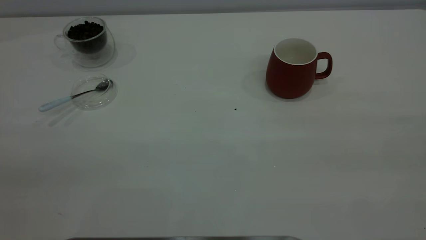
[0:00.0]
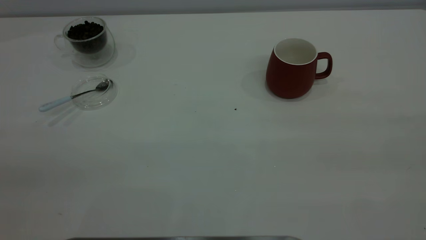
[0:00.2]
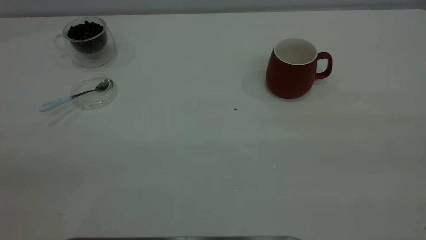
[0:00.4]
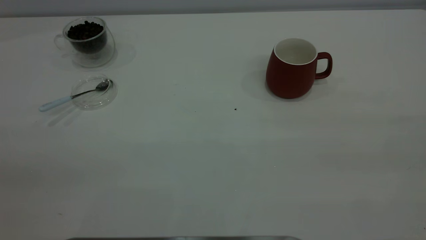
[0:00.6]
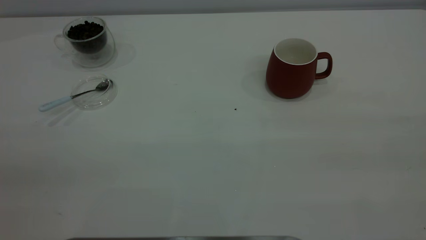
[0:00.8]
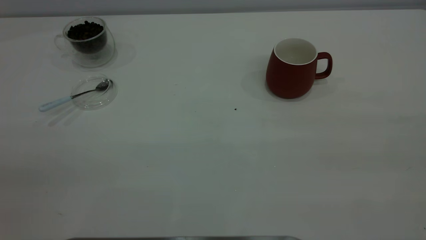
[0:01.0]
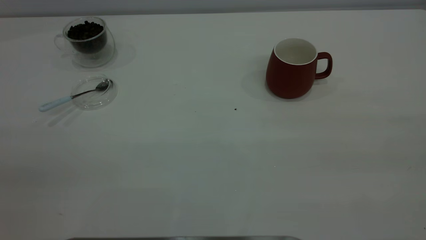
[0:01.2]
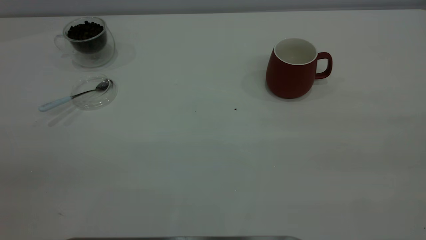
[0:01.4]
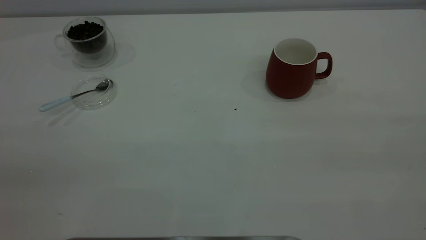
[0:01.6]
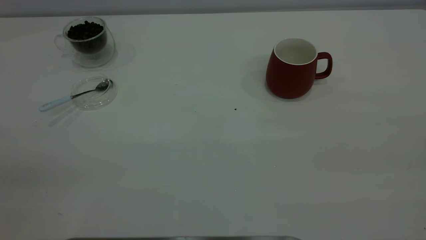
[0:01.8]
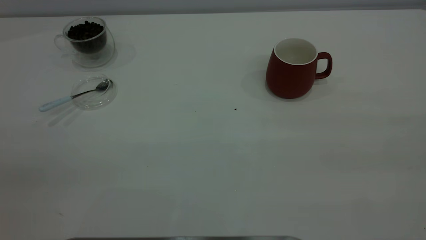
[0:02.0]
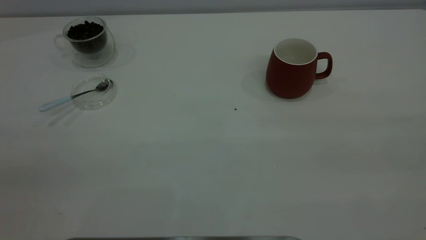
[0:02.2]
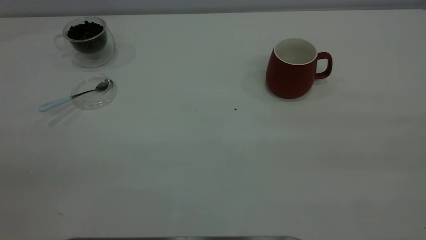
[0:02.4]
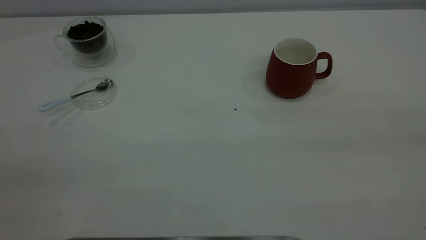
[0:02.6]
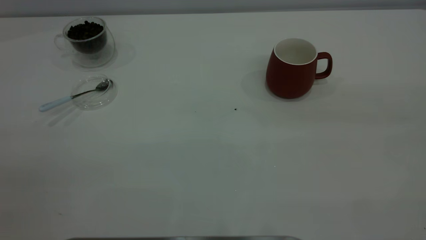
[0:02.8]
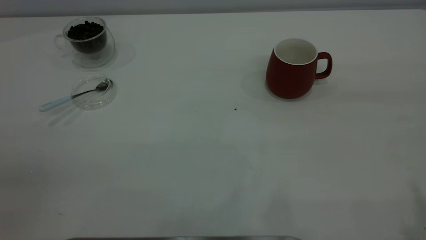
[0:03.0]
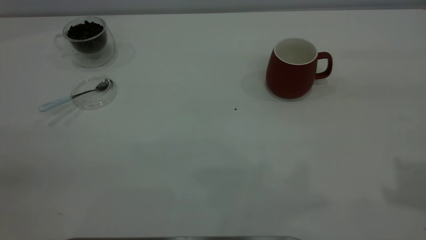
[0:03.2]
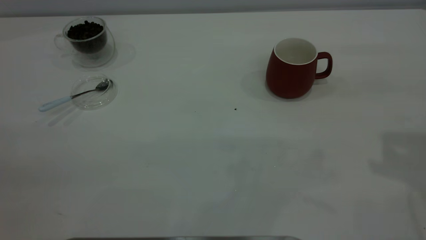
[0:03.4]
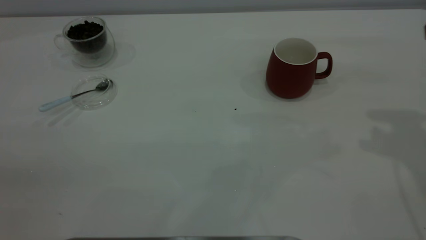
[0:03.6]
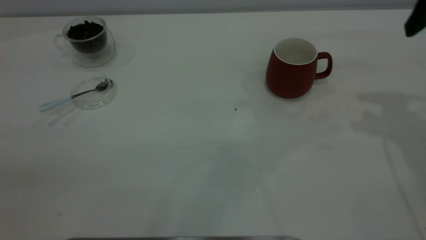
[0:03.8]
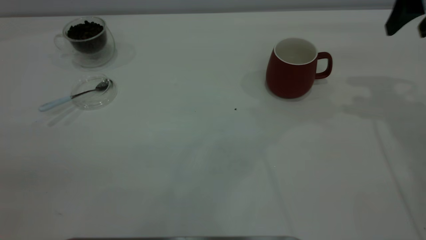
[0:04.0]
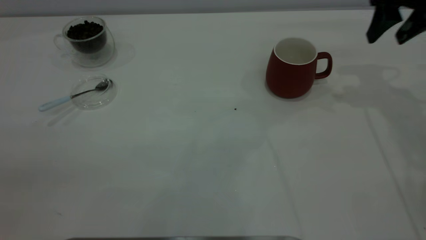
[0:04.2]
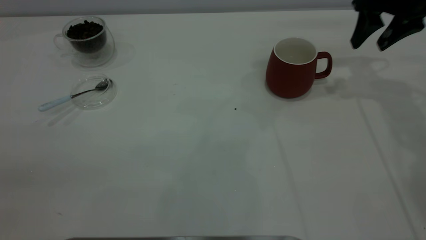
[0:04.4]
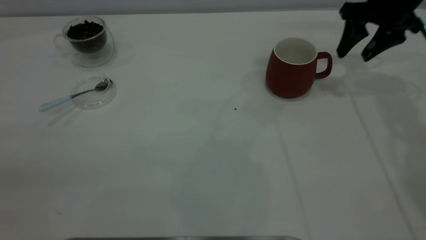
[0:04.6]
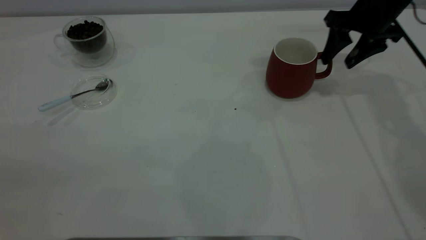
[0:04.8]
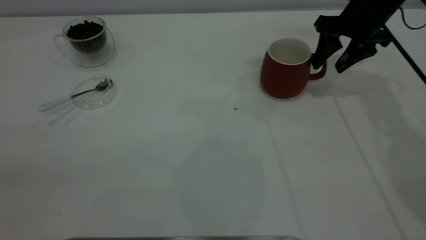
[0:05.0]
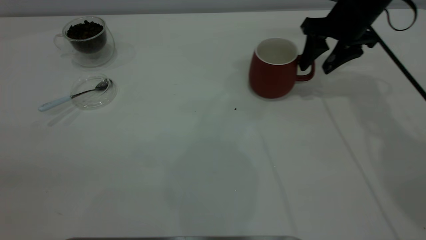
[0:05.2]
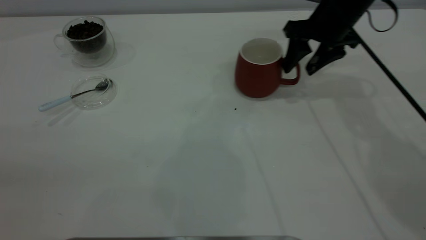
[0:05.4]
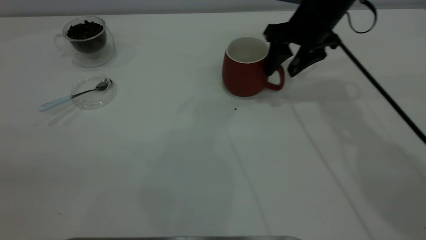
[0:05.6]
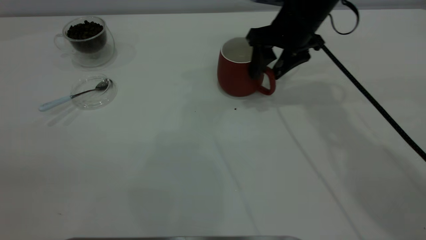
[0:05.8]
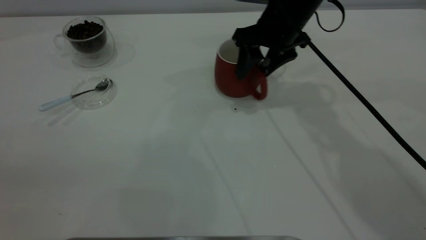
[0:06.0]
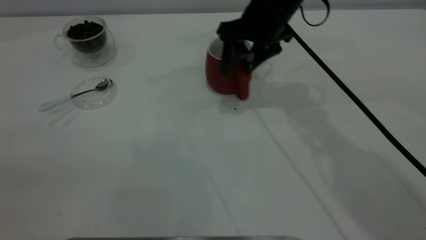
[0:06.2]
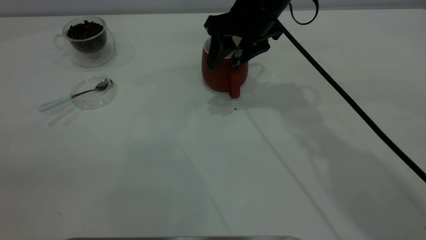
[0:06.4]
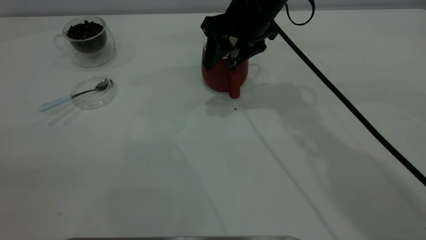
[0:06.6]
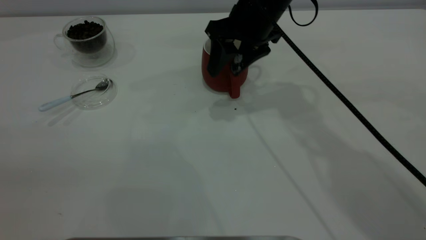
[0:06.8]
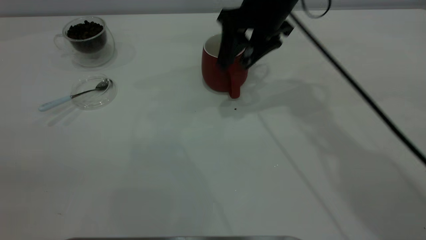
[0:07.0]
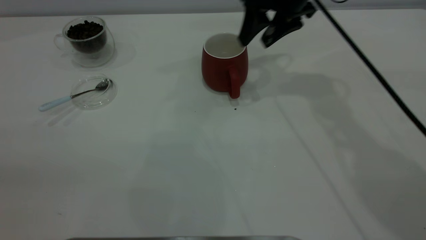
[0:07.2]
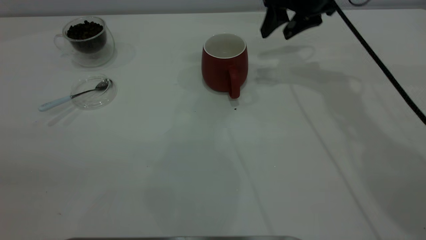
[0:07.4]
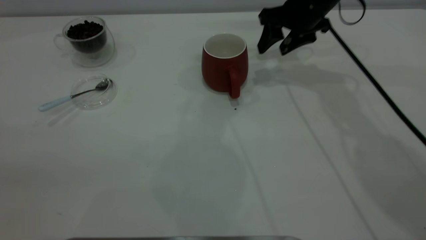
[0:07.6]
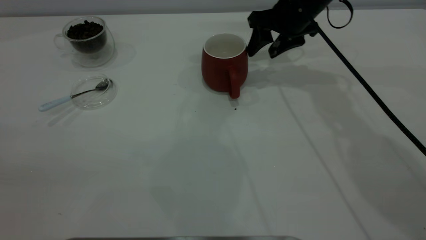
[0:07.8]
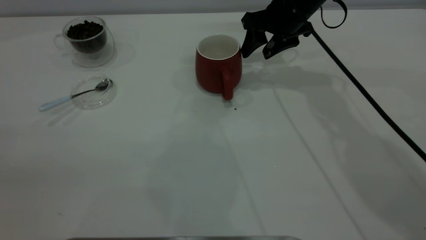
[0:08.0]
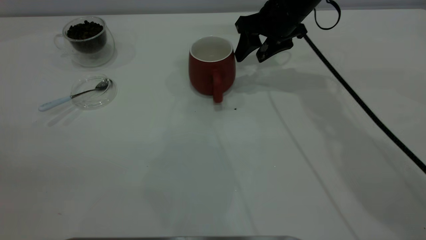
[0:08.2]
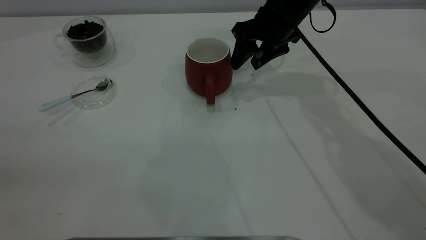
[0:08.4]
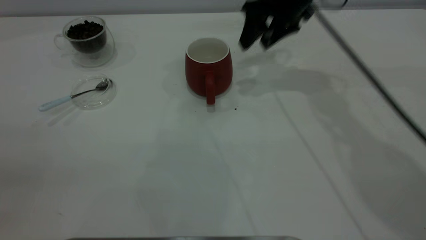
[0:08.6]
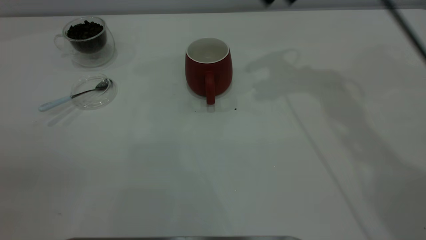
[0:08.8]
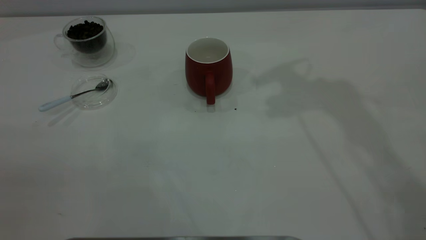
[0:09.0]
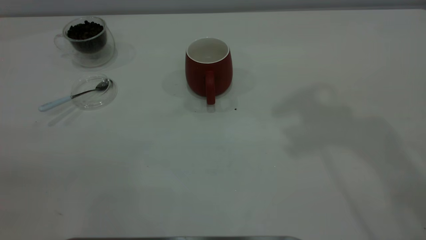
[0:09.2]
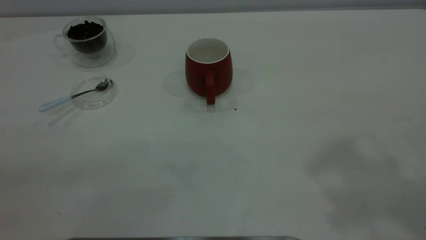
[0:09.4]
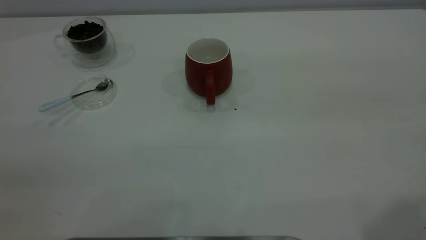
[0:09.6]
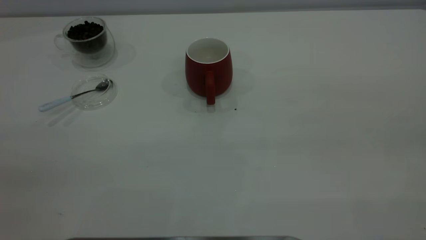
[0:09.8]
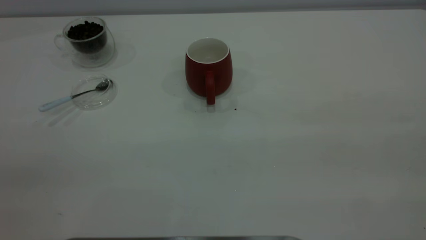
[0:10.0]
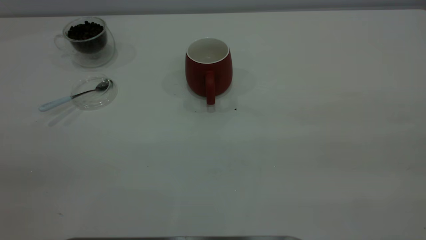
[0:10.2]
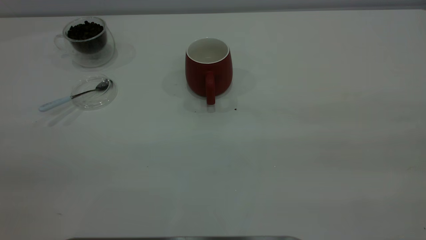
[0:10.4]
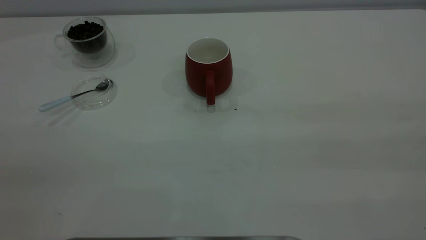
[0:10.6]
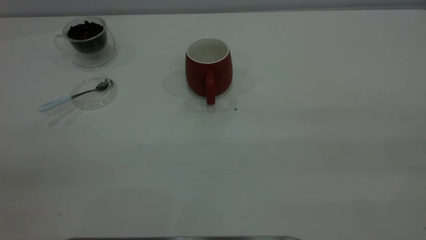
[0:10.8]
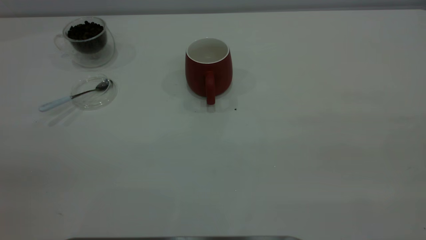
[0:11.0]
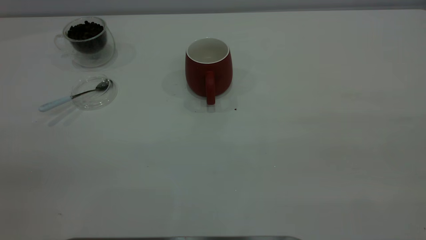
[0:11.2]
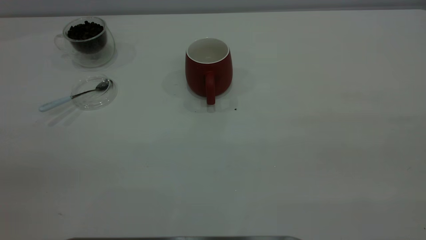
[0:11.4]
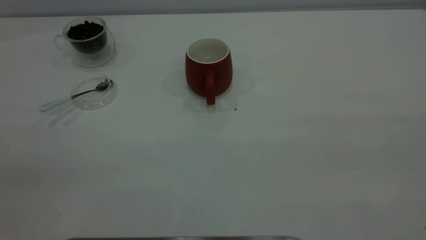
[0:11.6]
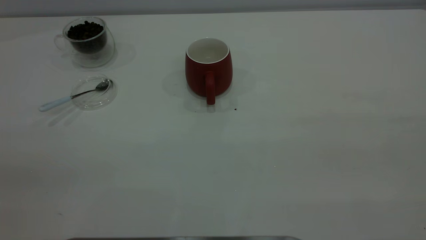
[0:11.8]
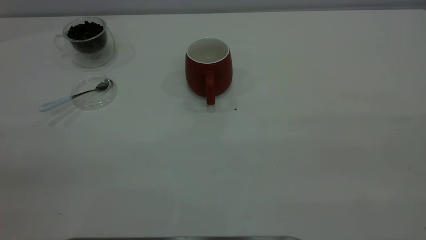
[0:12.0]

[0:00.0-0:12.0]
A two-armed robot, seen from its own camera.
Task of the whole recording: the right gripper place the red cup in the center of the table, the left gripper take the blue spoon from the cup lid and scoop out the coffee beans from the coffee cup and put them into the red cup, the left gripper put the spoon back into the cup lid.
Step, 0.0 to 8.4 s: Move the cup to the center of view.
0.0 to 1.6 s: Both grippers stay put.
3.0 to 4.4 s: The right gripper travels forward and downward by some 35 cm.
4.4 to 6.0 s: The right gripper heads to the left, covering roughly 20 cm.
6.0 to 7.6 s: The right gripper moves forward and to the right, about 10 cm.
7.6 to 9.0 s: The right gripper is displaced upward by roughly 25 cm.

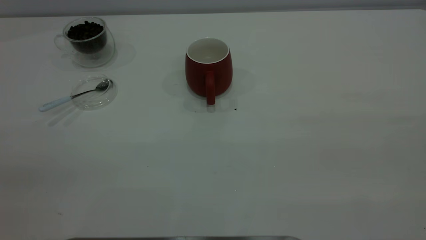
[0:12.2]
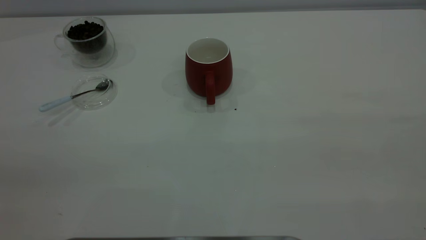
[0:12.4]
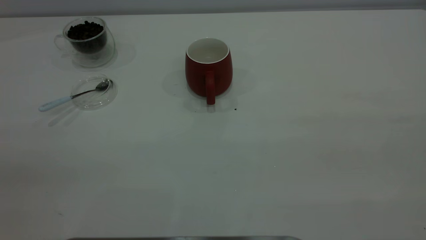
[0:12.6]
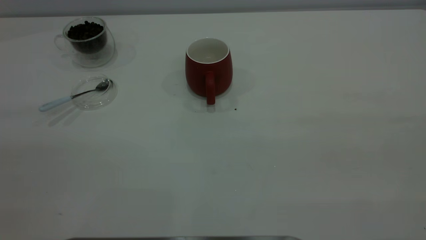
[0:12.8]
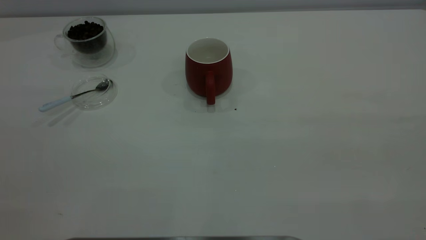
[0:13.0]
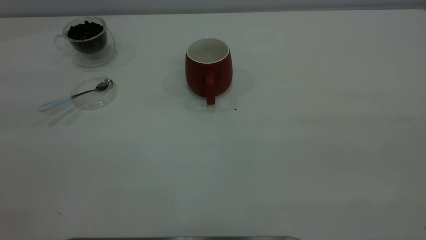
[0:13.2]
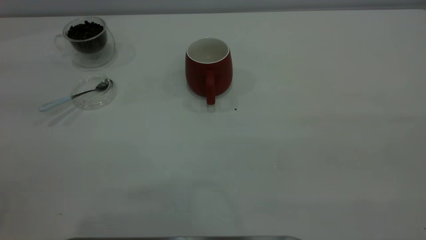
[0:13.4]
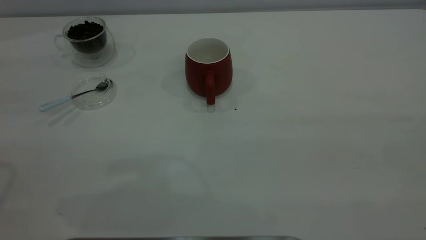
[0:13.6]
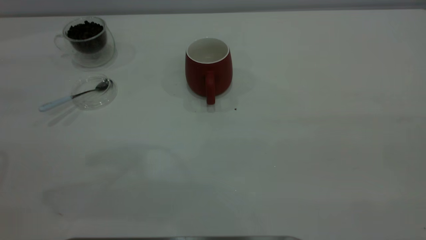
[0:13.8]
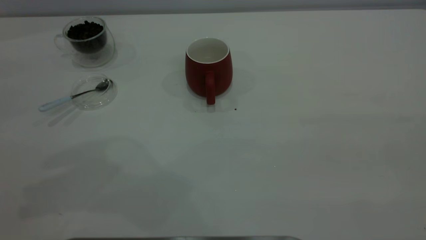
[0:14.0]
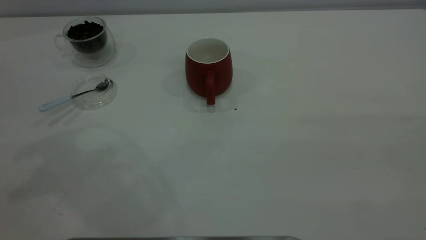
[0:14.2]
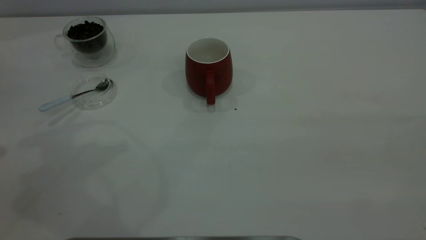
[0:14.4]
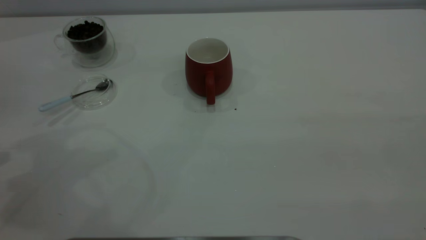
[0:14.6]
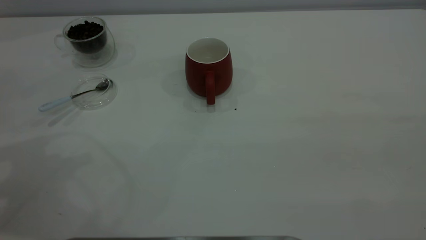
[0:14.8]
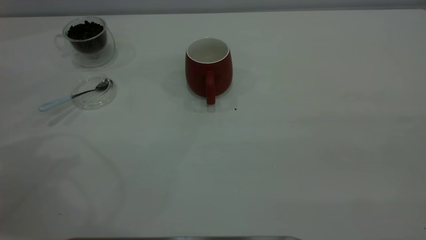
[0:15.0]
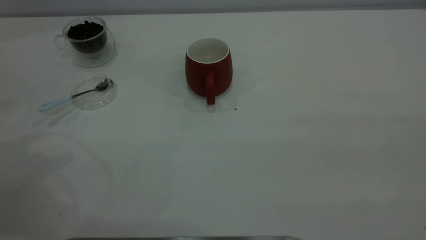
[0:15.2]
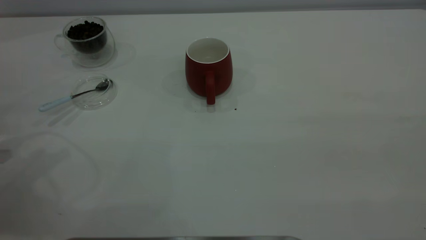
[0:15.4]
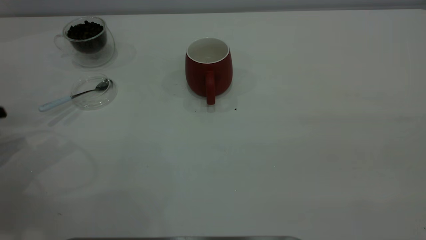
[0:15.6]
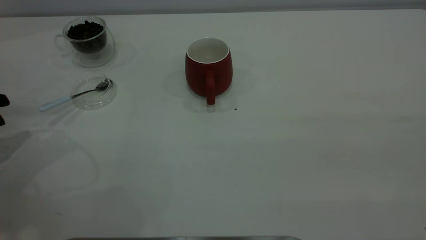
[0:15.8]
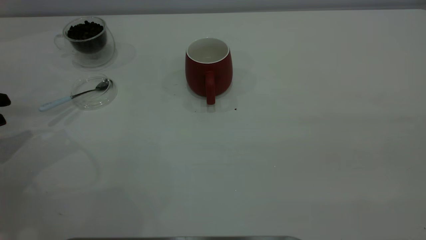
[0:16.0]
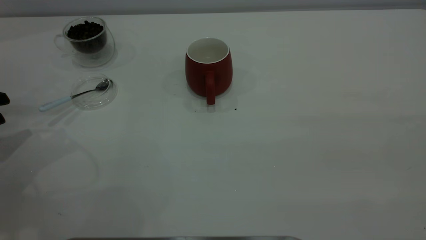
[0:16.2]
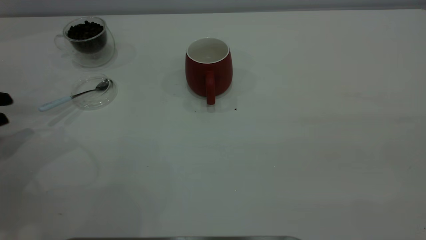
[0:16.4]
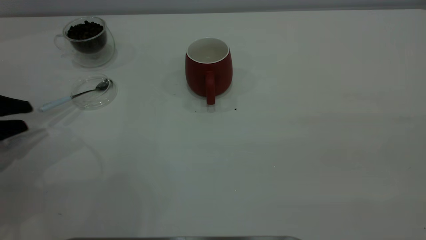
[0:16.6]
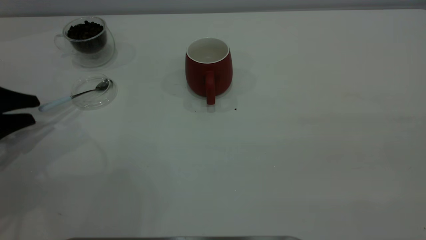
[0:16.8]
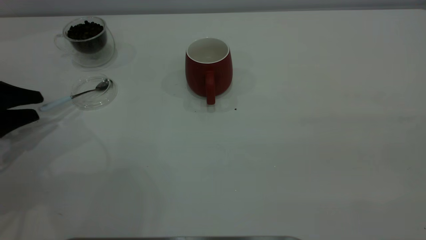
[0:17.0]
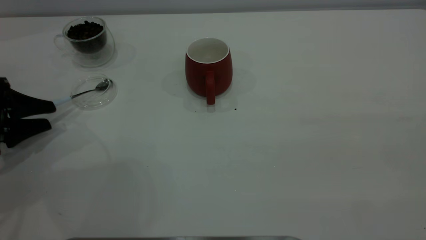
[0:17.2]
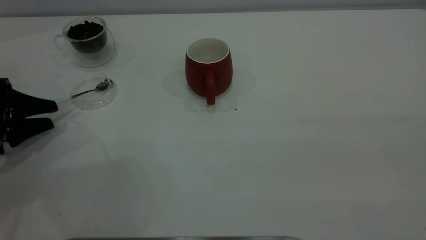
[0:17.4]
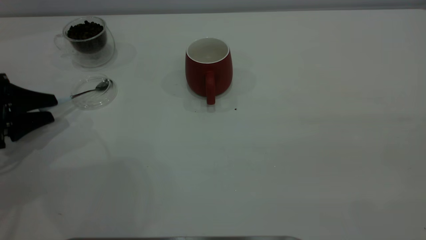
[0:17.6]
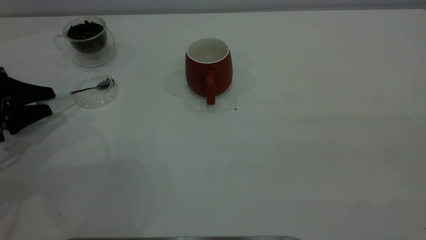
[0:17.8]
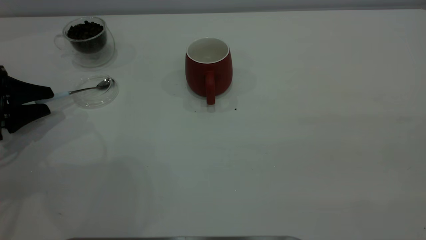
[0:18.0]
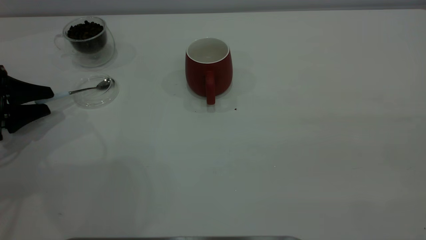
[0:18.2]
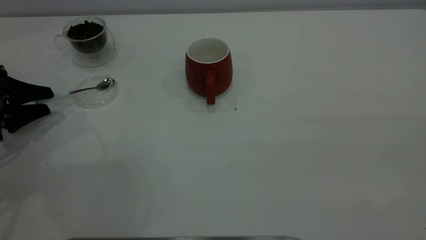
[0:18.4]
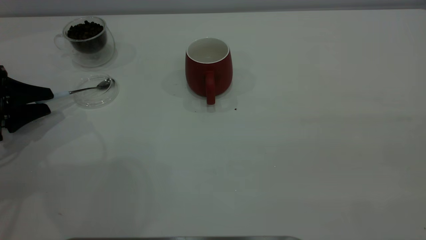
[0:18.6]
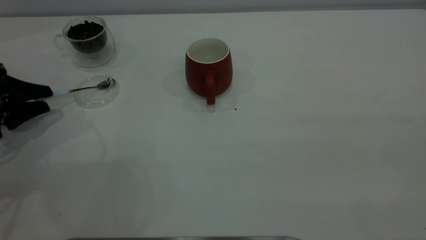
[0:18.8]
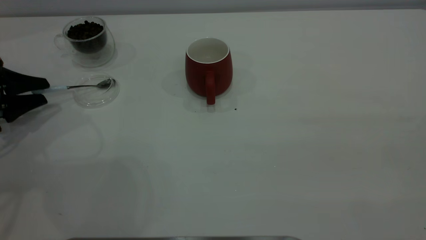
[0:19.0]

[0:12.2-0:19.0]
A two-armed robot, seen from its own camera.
Task of the whole recording: the right gripper place the red cup in the center of the table, the left gripper take the blue spoon from the cup lid and scoop out the coffee beans from the coffee cup and put them into the red cup, the left gripper put the spoon back into the cup lid.
16.2 to 17.6 s: The left gripper moves about 5 cm.
17.6 to 19.0 s: The grippers move only a little.
